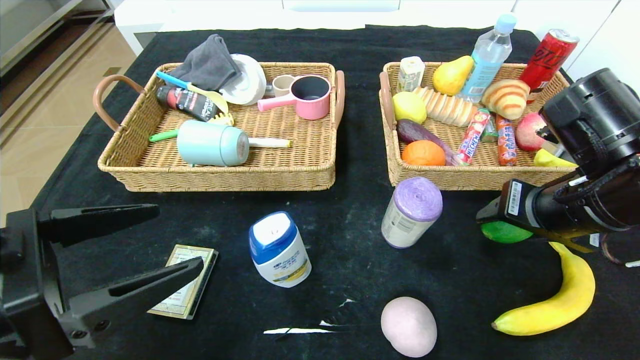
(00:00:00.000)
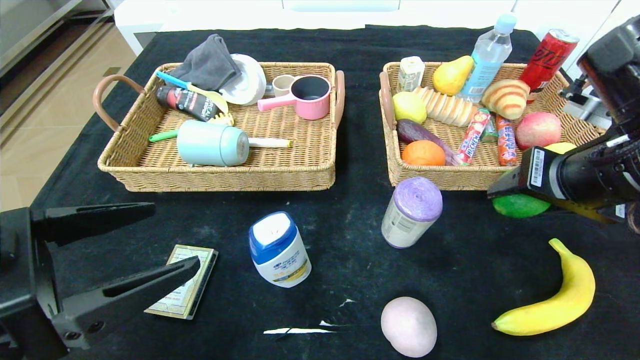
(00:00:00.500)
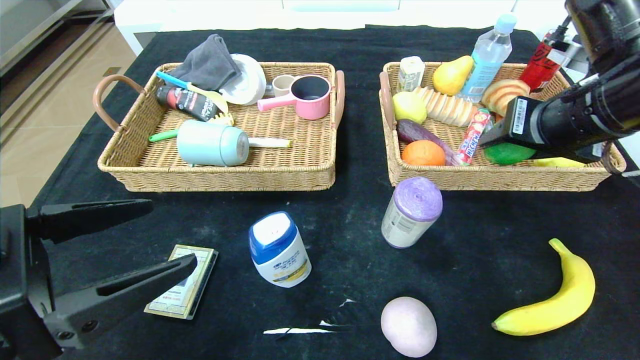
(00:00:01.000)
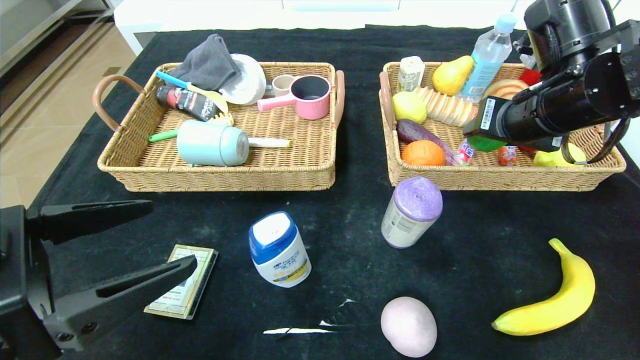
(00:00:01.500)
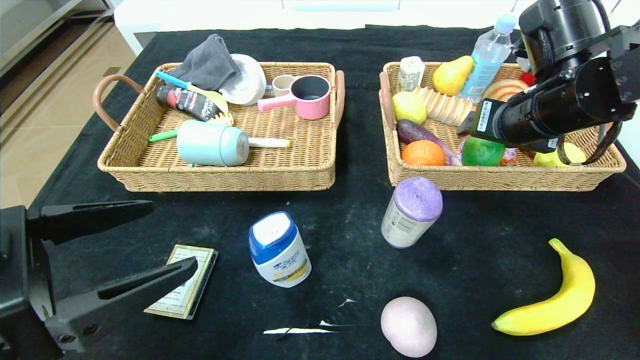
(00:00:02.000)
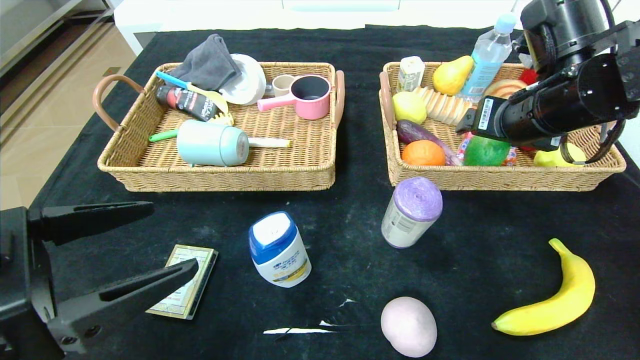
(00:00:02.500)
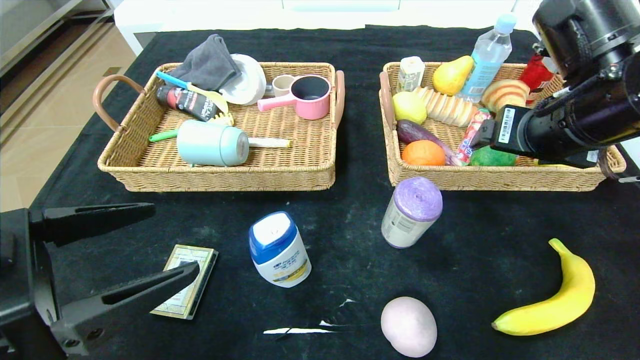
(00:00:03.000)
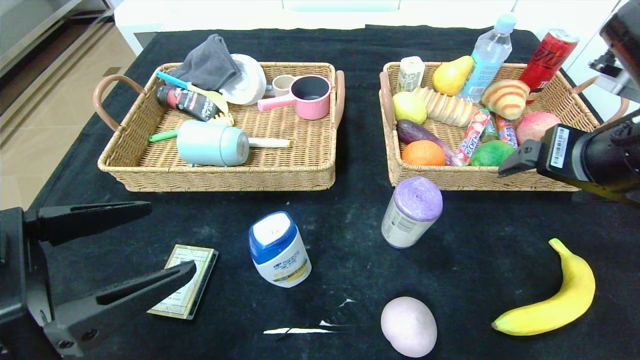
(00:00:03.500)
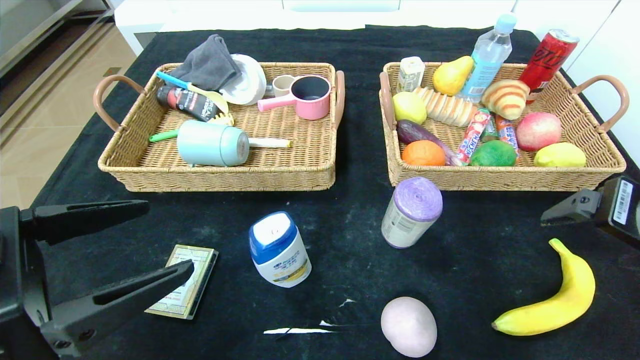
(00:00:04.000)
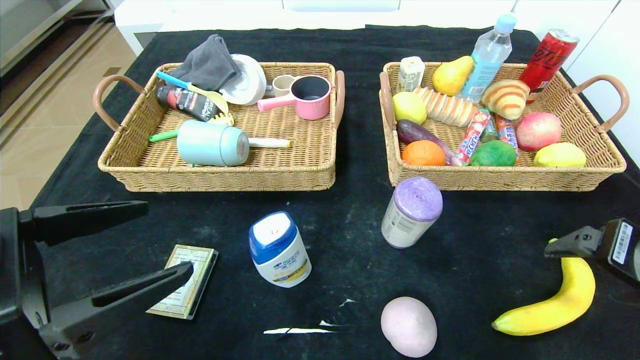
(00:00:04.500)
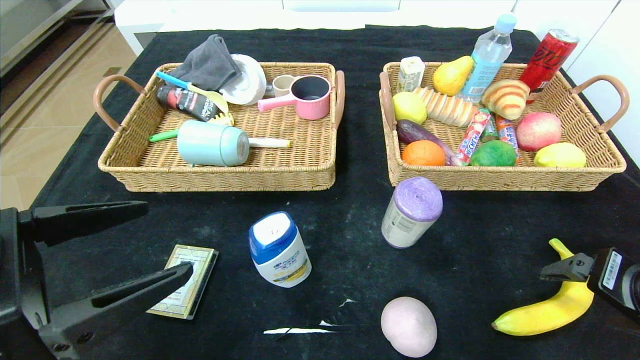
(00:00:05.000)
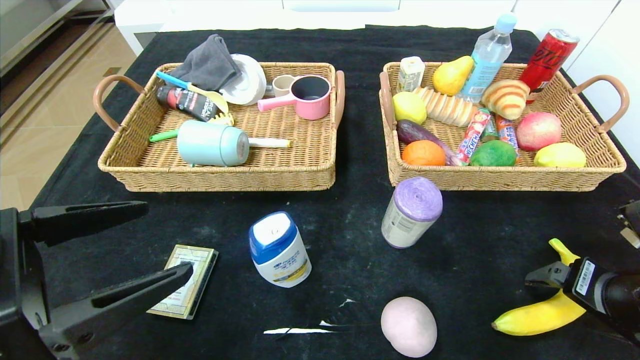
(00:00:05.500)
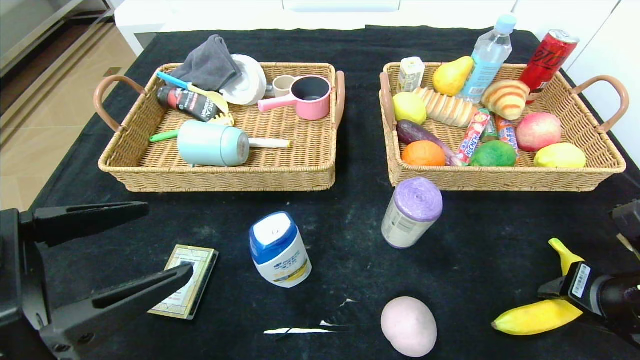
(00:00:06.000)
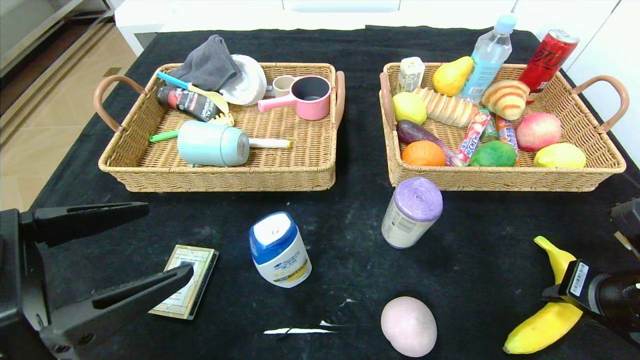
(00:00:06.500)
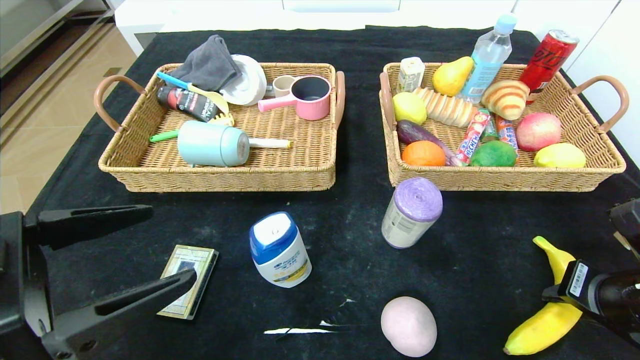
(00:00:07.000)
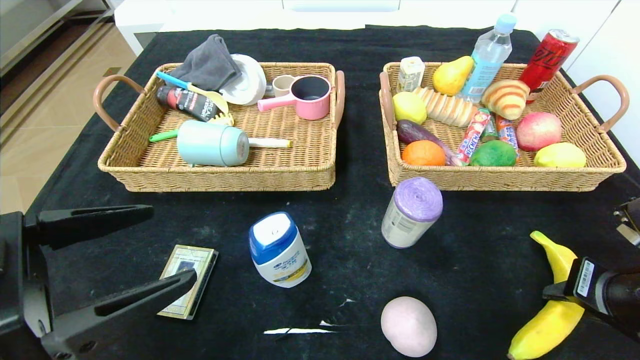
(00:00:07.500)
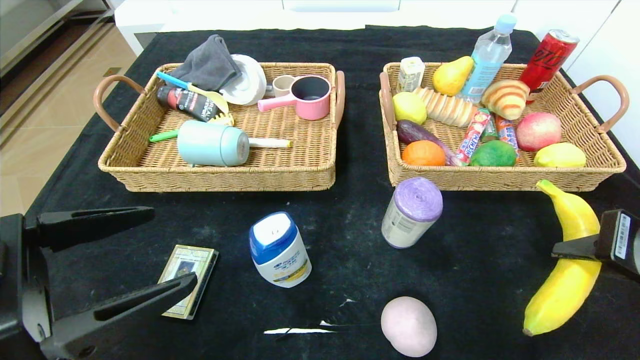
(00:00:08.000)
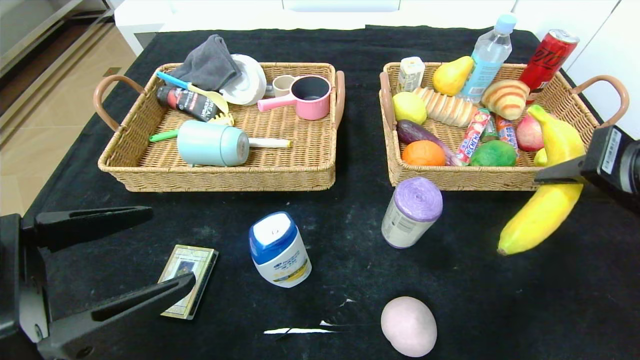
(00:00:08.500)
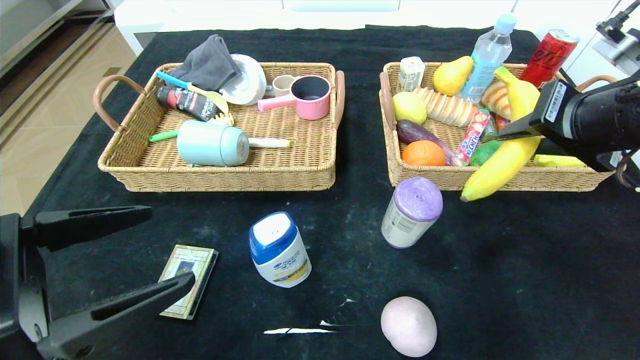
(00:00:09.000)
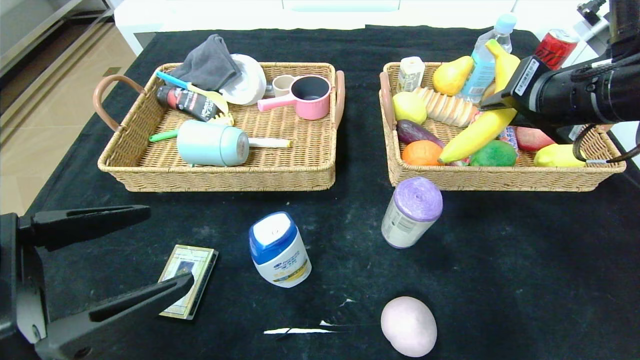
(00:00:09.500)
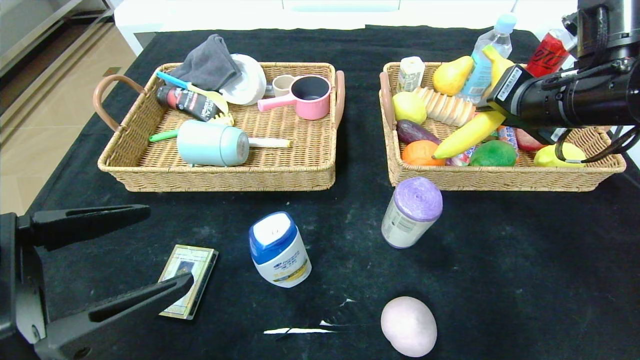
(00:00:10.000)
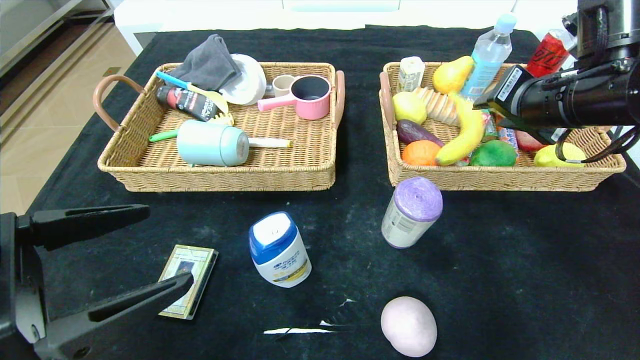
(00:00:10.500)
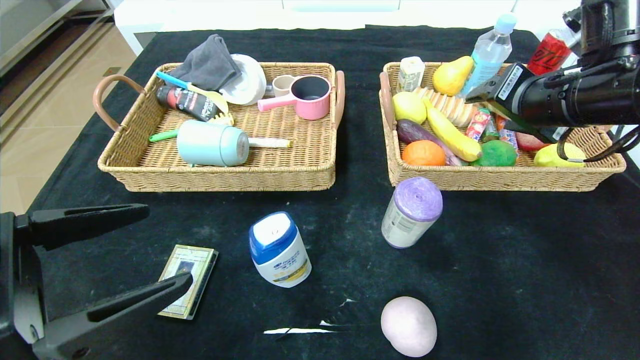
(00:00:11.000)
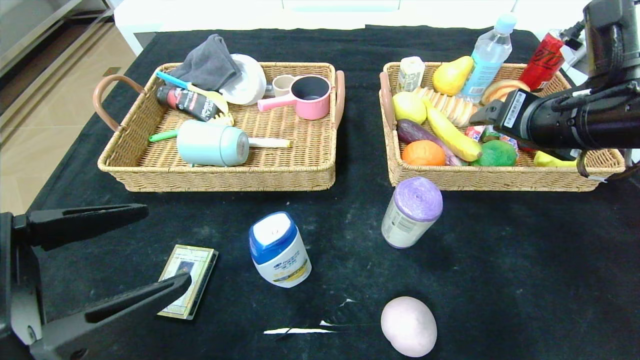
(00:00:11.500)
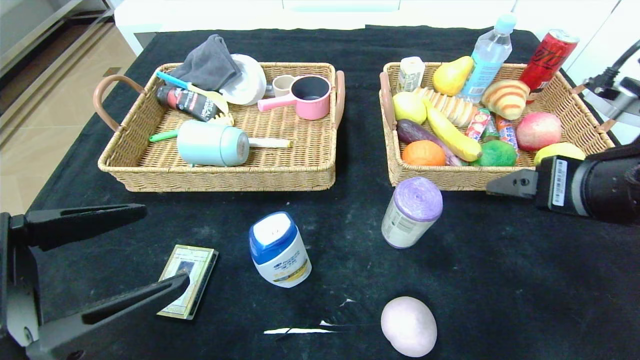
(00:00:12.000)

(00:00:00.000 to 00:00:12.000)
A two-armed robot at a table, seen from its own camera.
Step, 00:00:00.000 - 00:00:02.500: Grasp the lime and put it in the right basket.
Step, 00:00:03.000 - 00:00:11.000: Grasp the banana and put it in the right basket.
00:00:00.000 - 00:00:02.000: The right gripper shifts about 10 cm forward and upward.
00:00:02.000 - 00:00:04.000: The right gripper moves backward, some 15 cm.
00:00:04.000 - 00:00:06.000: The right gripper goes some 10 cm downward, and closes.
00:00:06.000 - 00:00:08.000: The right gripper moves upward, approximately 10 cm.
00:00:08.000 - 00:00:10.000: The right gripper is displaced forward and upward by roughly 15 cm.
00:00:10.000 - 00:00:12.000: The right gripper goes approximately 10 cm backward, and opens.

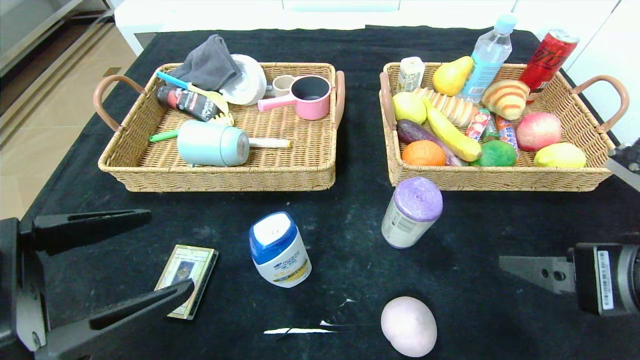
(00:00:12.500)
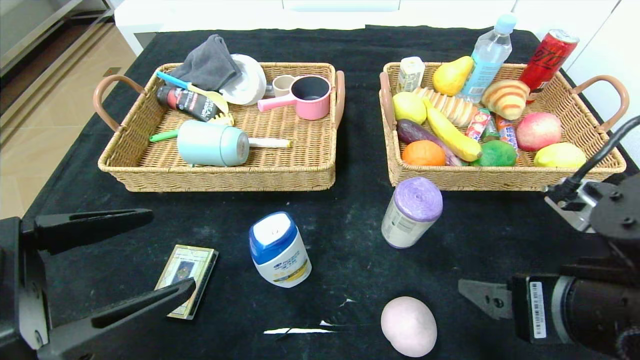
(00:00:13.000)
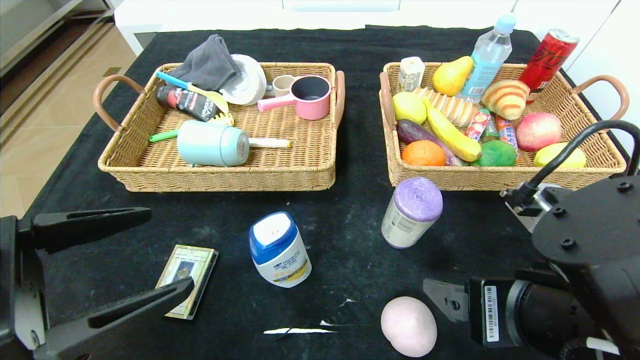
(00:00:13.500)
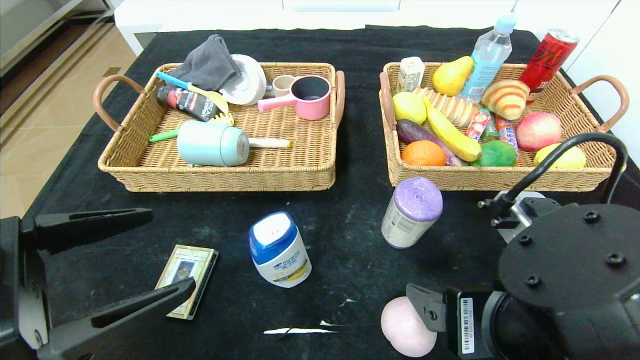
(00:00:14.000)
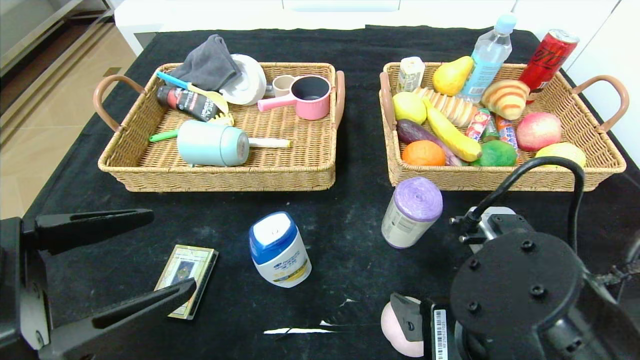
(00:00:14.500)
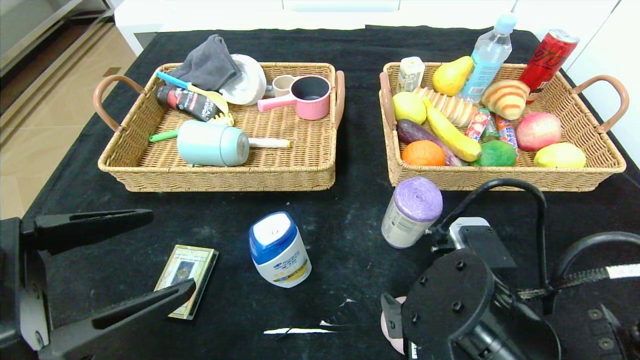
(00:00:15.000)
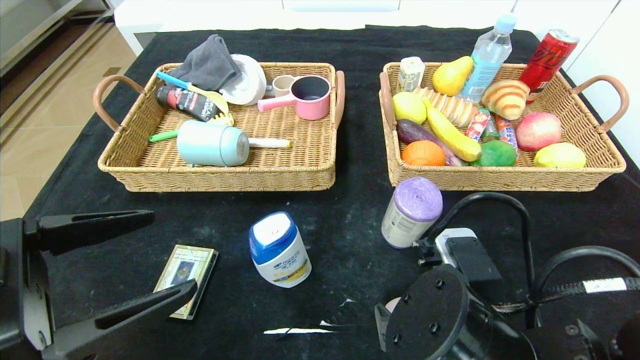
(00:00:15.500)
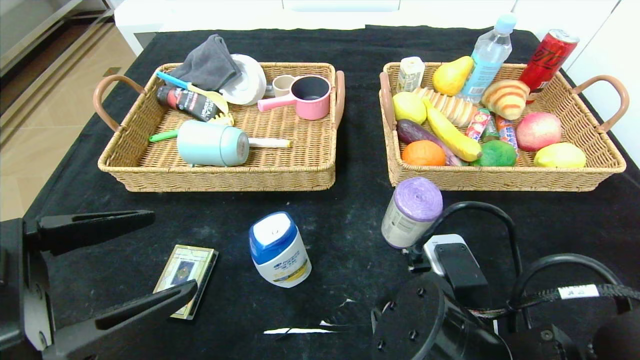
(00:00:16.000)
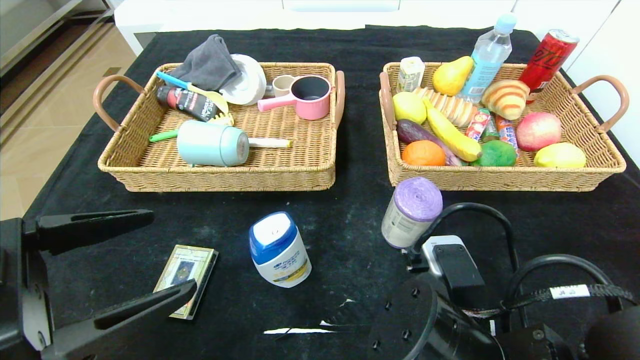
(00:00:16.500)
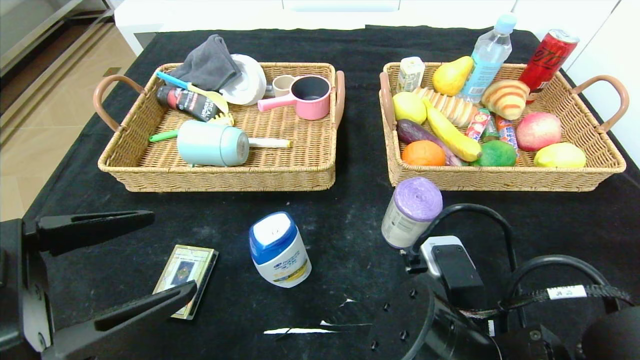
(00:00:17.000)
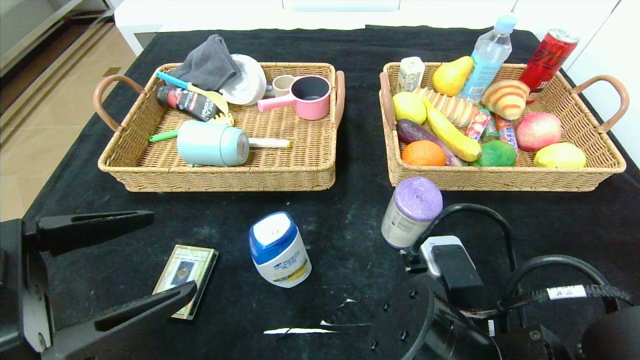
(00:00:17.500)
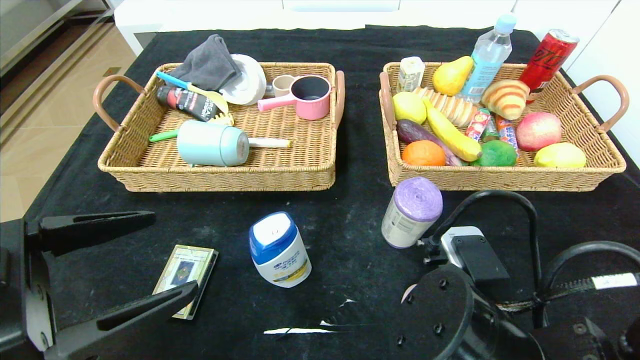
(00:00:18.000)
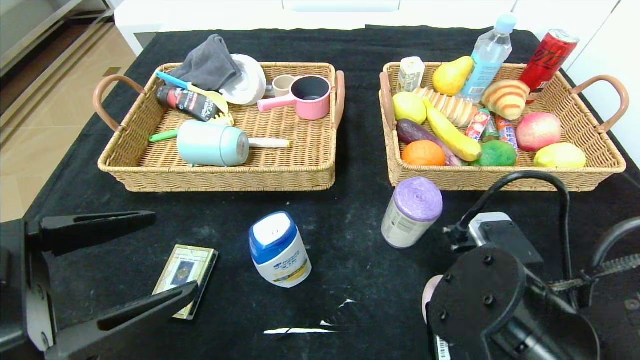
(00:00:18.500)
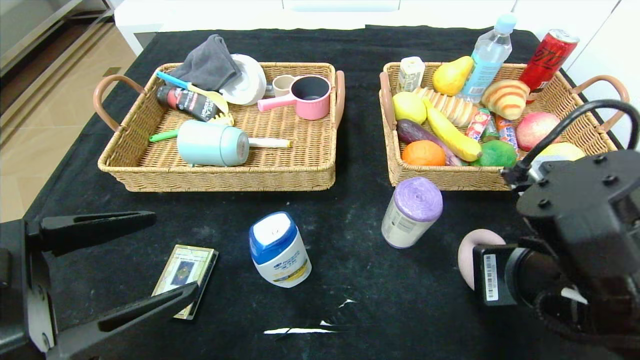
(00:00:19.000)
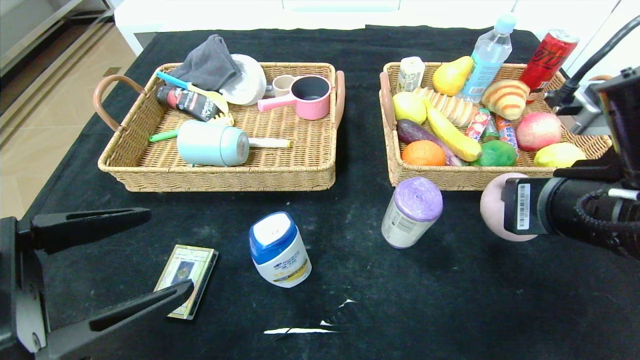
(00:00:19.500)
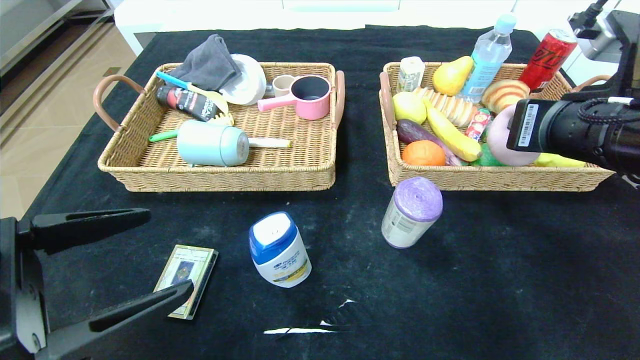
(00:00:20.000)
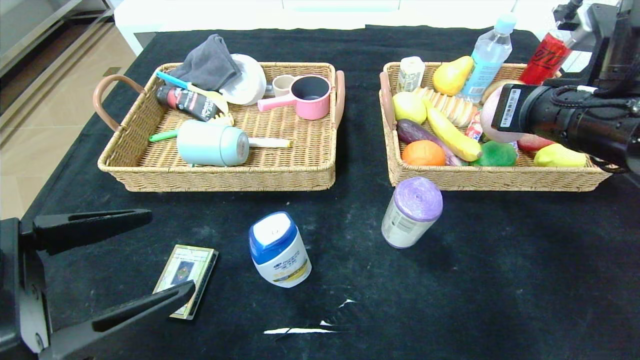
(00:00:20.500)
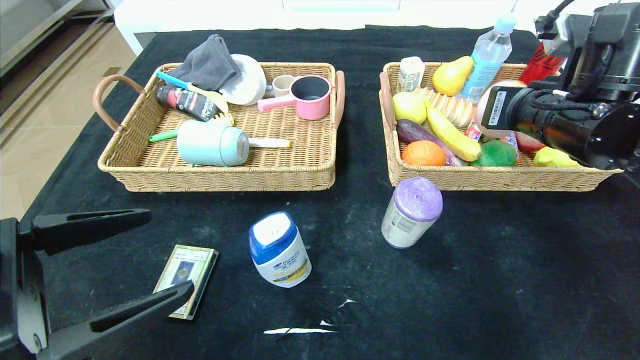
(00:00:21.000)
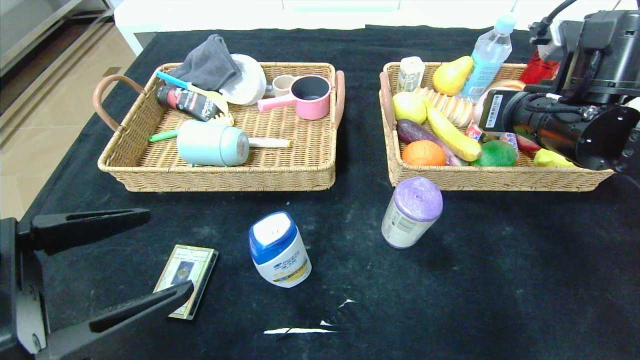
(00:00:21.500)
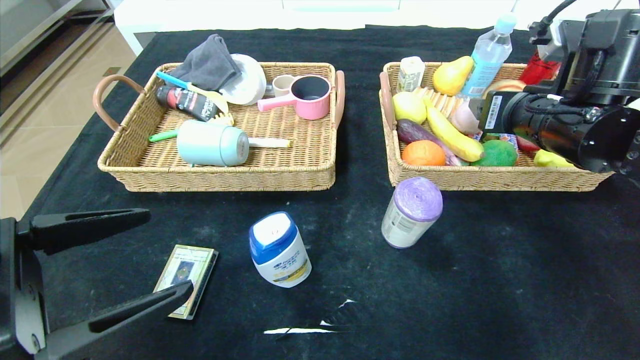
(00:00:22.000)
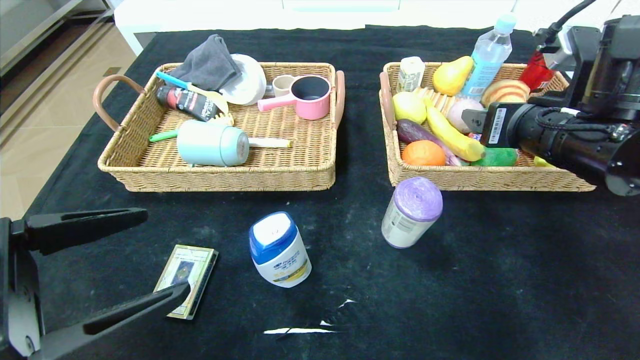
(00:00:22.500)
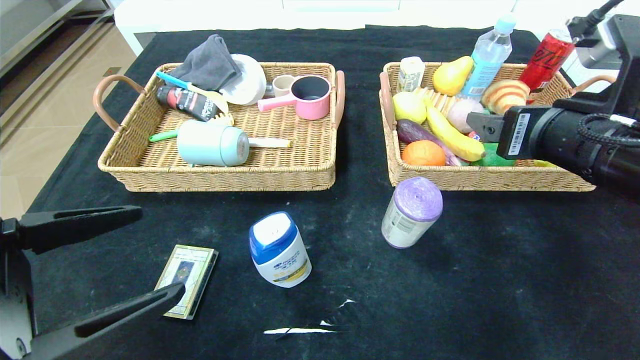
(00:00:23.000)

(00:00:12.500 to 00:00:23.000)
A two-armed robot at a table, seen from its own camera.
Step, 00:00:12.500 - 00:00:22.500: Grasp the peach and put it in the right basket.
00:00:12.500 - 00:00:14.500: The right gripper goes about 10 cm to the left and downward.
00:00:14.500 - 00:00:16.500: The right gripper closes its fingers.
00:00:16.500 - 00:00:19.000: The right gripper shifts about 10 cm to the right and upward, and closes.
00:00:19.000 - 00:00:21.000: The right gripper heads forward and upward, covering some 15 cm.
00:00:21.000 - 00:00:23.000: The right gripper shifts approximately 10 cm backward, and opens up.
